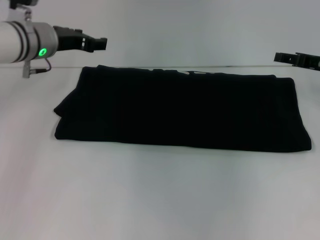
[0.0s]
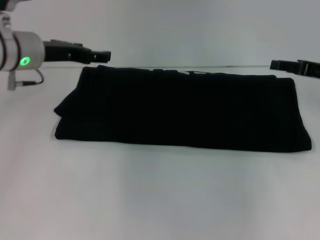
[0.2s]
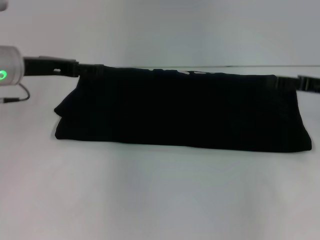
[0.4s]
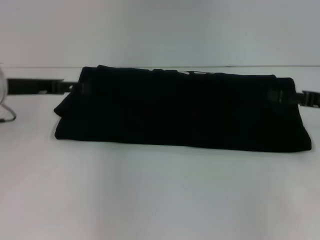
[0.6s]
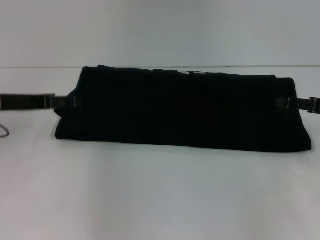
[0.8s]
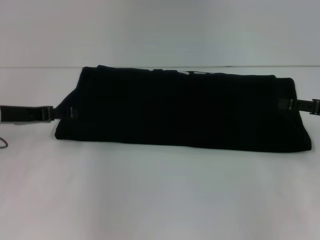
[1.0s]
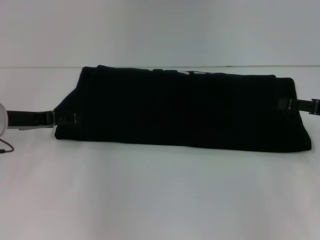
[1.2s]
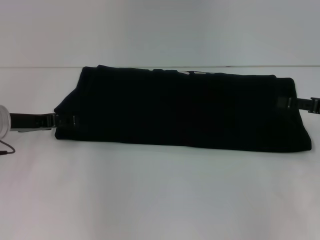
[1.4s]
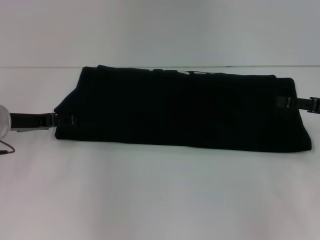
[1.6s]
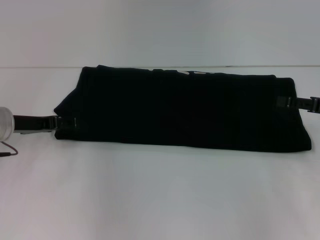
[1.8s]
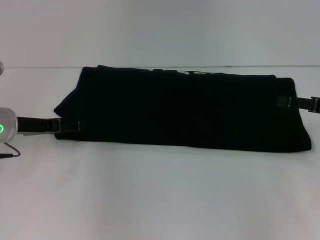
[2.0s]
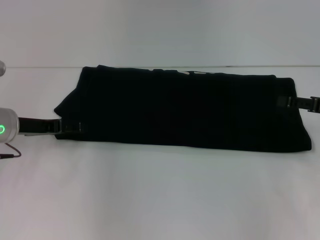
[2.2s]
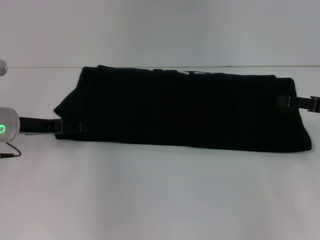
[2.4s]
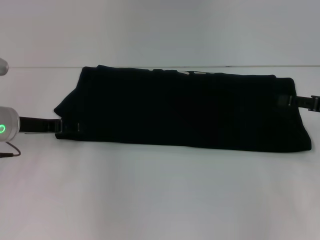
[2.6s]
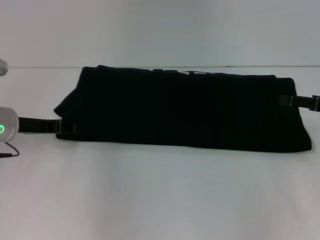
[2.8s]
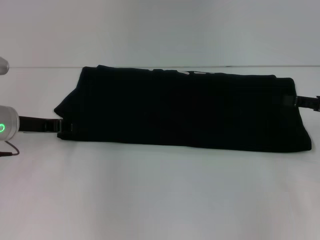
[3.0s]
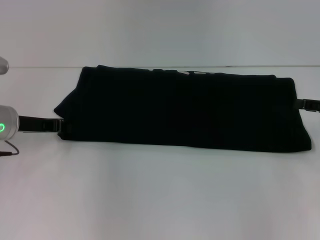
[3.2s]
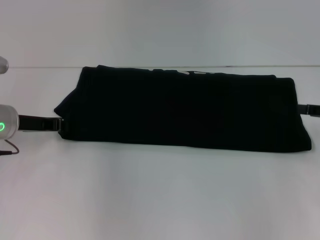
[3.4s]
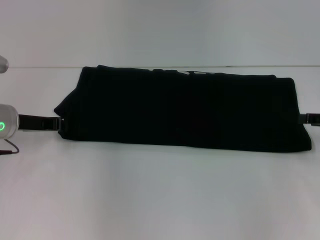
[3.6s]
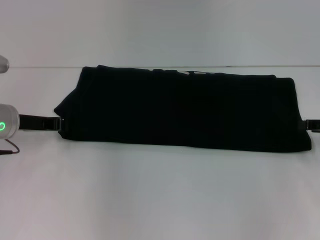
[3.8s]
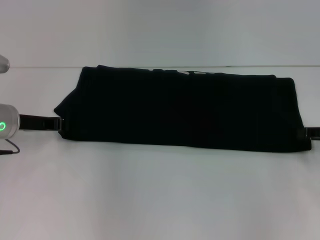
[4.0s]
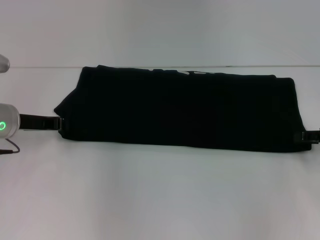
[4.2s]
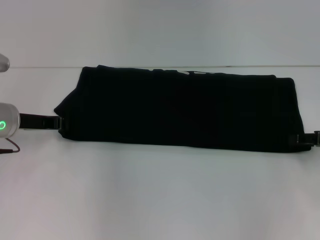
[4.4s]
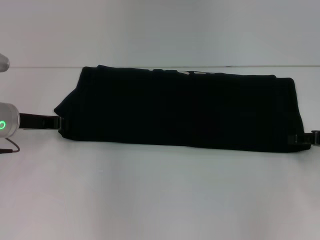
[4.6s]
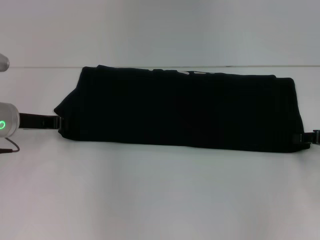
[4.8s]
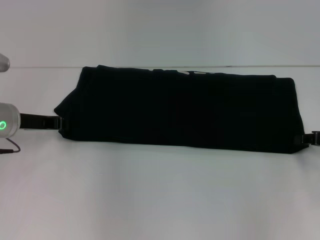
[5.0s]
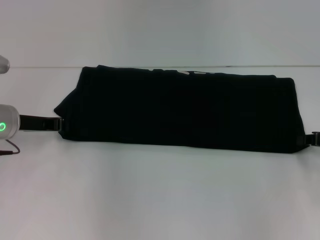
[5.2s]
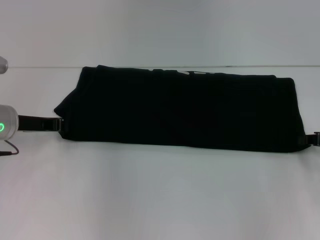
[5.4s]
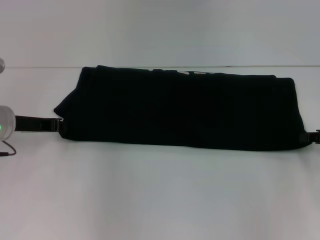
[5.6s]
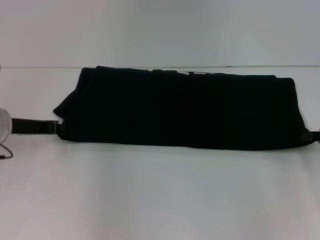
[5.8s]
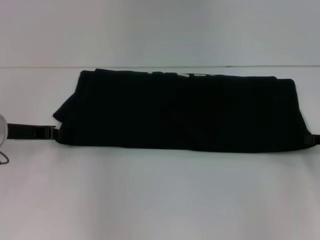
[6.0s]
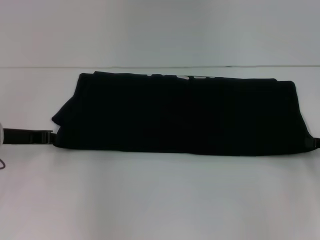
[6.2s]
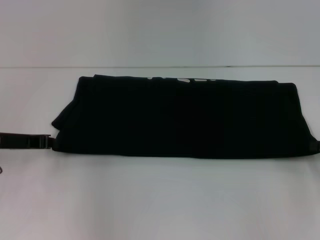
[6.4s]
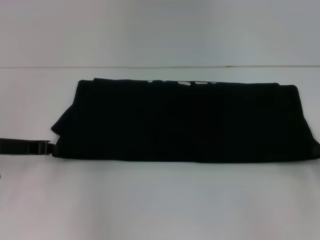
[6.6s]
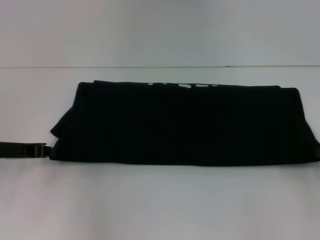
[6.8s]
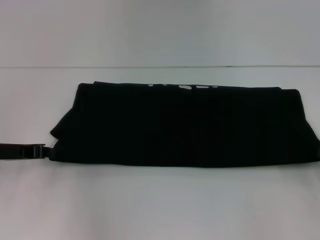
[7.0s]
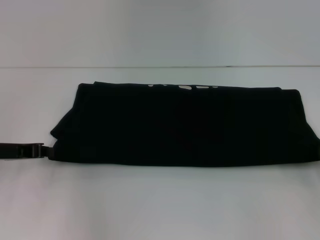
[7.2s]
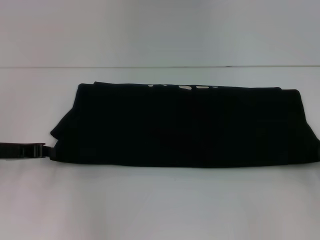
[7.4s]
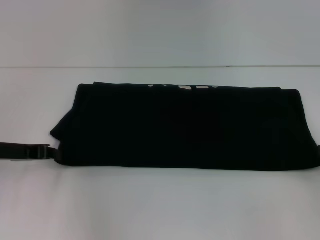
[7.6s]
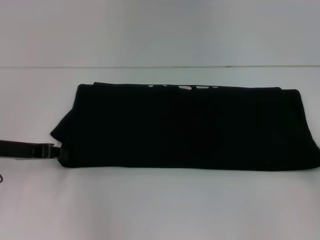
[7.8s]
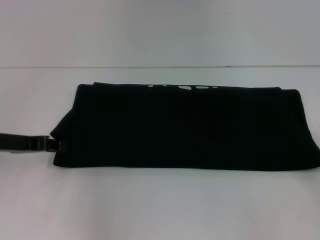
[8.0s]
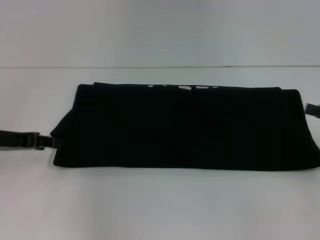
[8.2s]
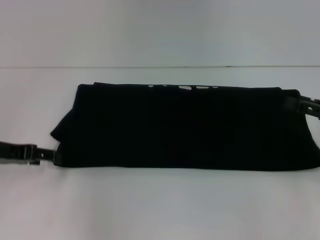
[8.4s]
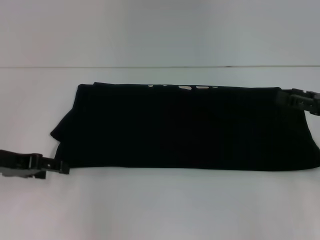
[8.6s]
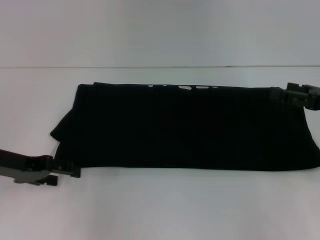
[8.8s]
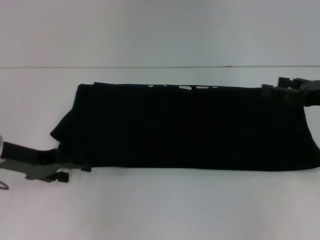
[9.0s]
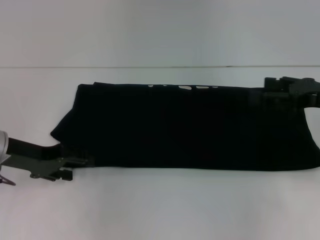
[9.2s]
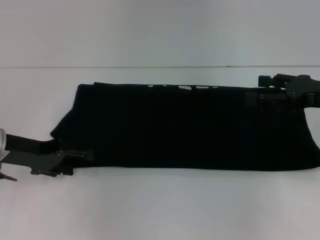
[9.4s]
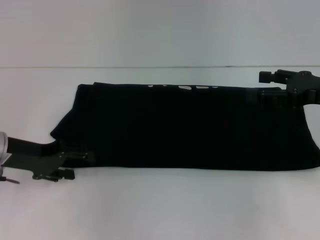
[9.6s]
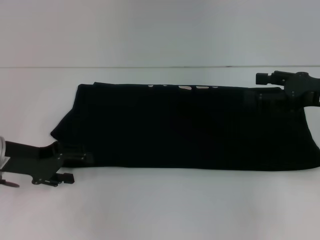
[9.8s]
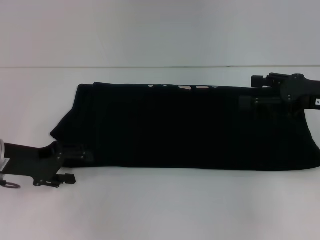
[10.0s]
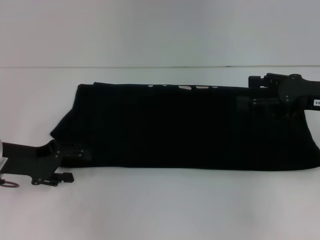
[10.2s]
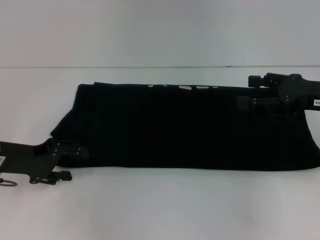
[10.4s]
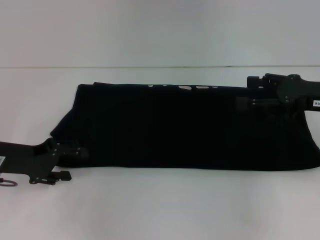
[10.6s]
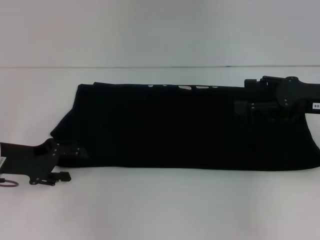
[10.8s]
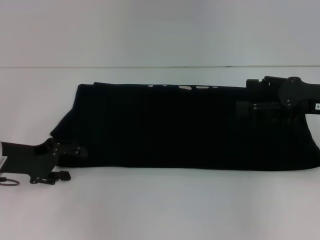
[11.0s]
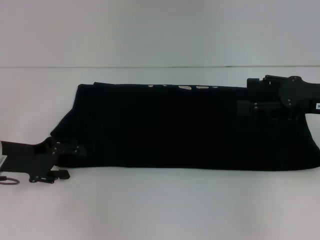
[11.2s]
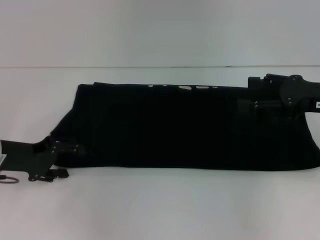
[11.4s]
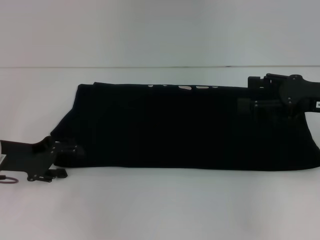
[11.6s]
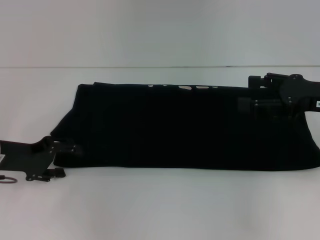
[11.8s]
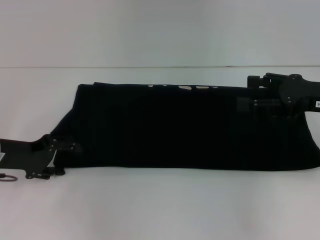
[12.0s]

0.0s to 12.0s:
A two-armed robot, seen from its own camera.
0.0s to 1.6s: The left gripper goes approximately 15 cm backward, to the left and downward, and opens. The right gripper goes about 10 cm backward.
1.6s to 3.0s: The left gripper closes.
3.0s to 4.4s: The left gripper closes.
4.4s to 6.0s: The right gripper closes its fingers.
6.0s to 7.6s: The grippers make only small movements.
7.6s to 9.0s: The right gripper goes about 10 cm to the left, forward and upward, and opens up; the left gripper opens.
10.4s to 12.0s: The grippers make only small movements.

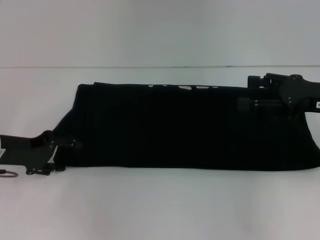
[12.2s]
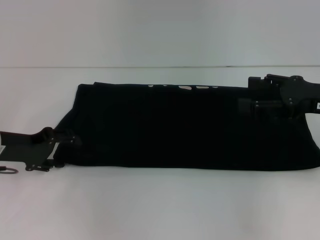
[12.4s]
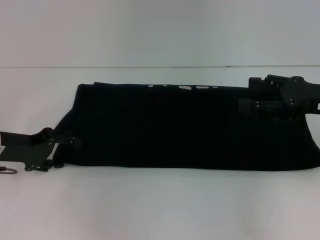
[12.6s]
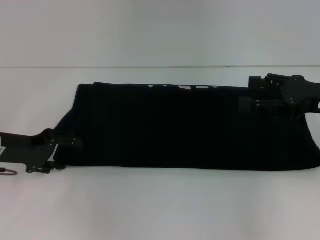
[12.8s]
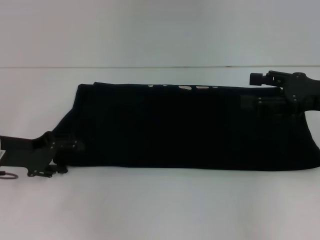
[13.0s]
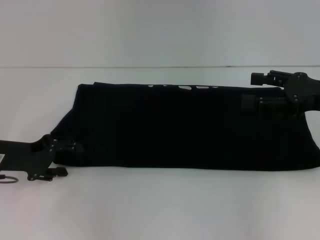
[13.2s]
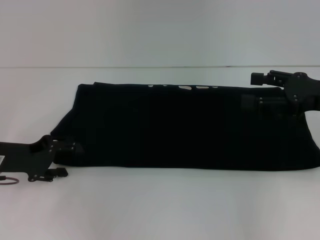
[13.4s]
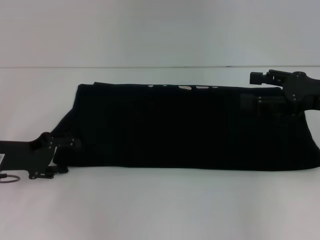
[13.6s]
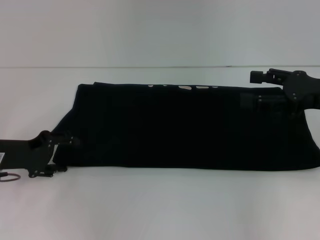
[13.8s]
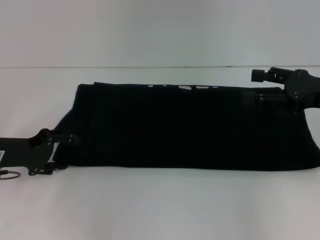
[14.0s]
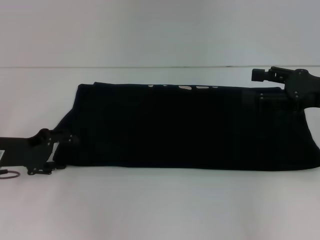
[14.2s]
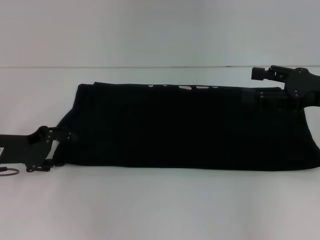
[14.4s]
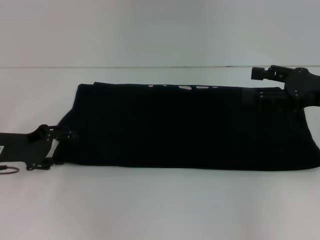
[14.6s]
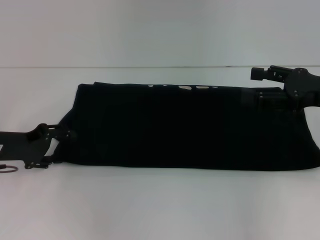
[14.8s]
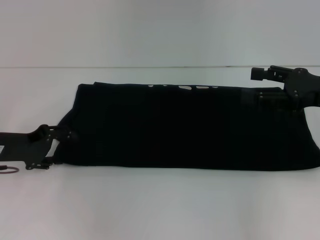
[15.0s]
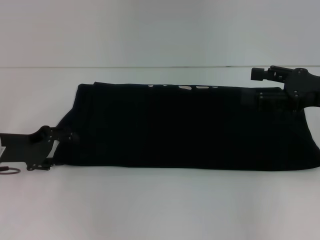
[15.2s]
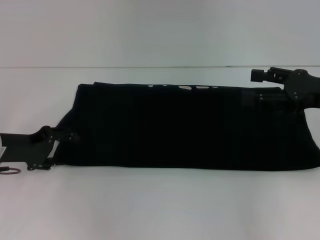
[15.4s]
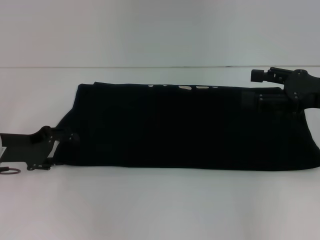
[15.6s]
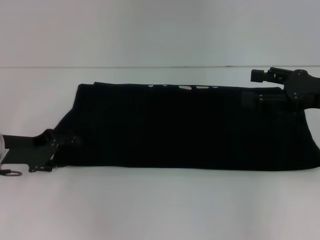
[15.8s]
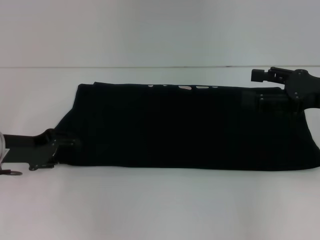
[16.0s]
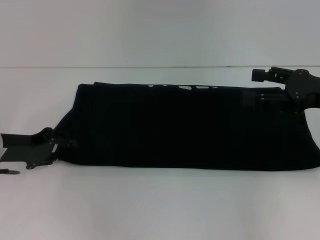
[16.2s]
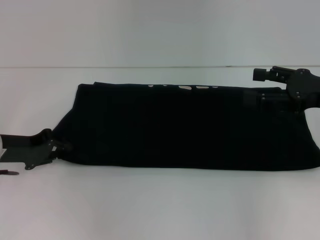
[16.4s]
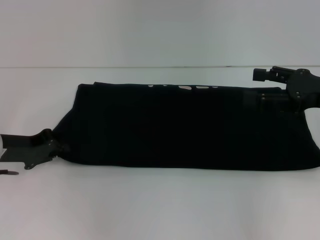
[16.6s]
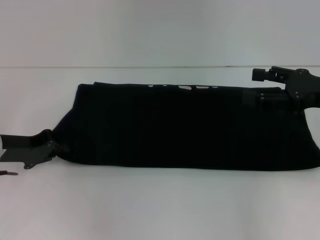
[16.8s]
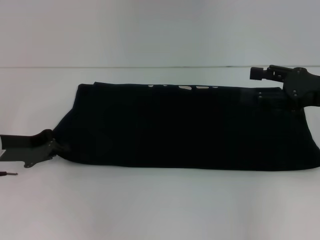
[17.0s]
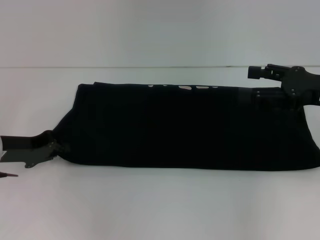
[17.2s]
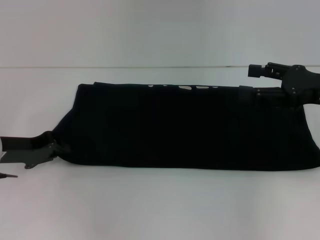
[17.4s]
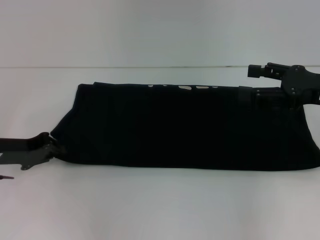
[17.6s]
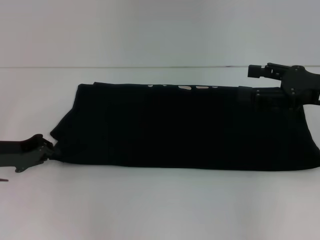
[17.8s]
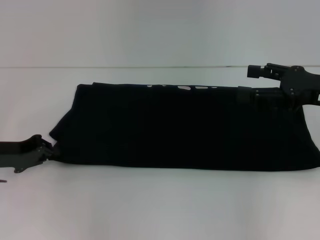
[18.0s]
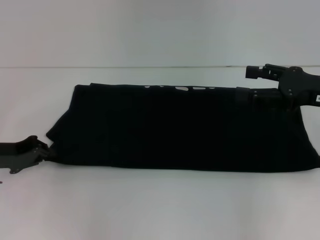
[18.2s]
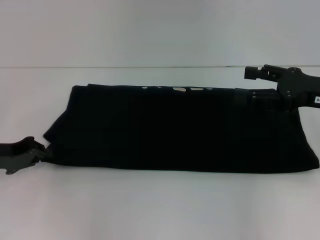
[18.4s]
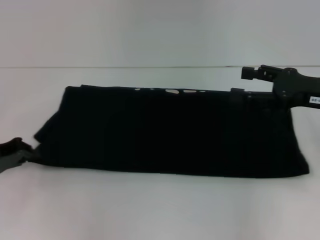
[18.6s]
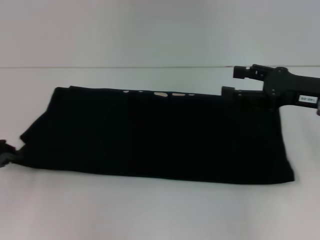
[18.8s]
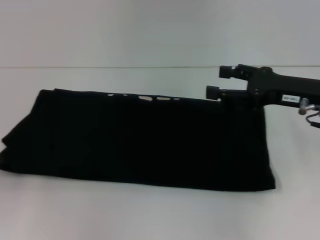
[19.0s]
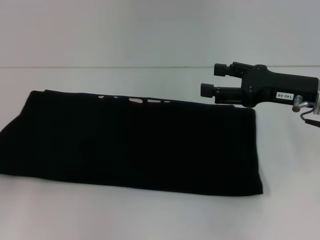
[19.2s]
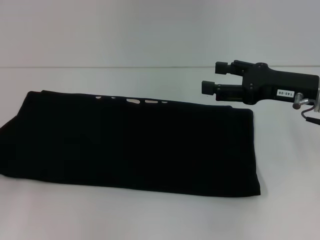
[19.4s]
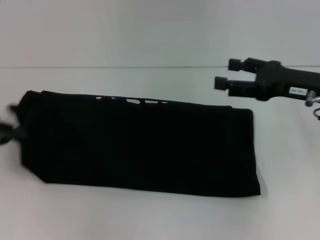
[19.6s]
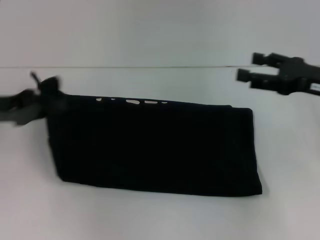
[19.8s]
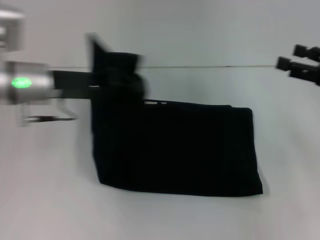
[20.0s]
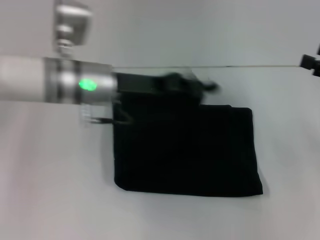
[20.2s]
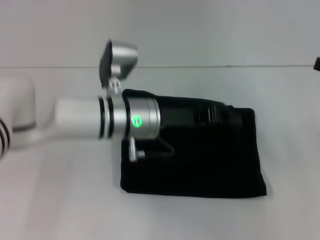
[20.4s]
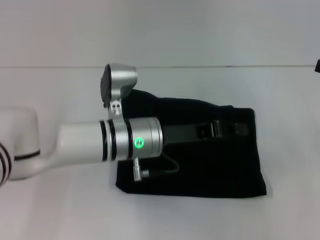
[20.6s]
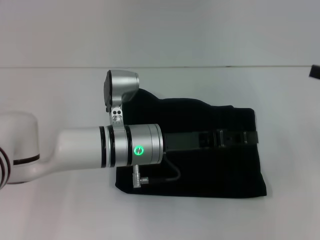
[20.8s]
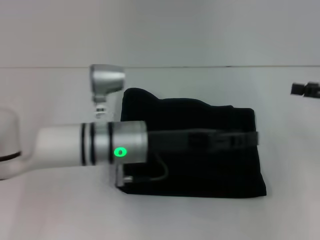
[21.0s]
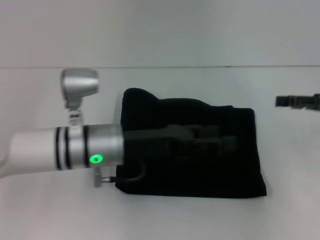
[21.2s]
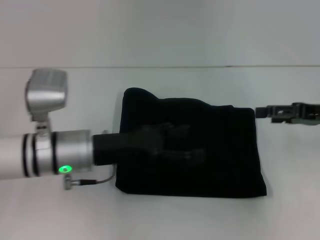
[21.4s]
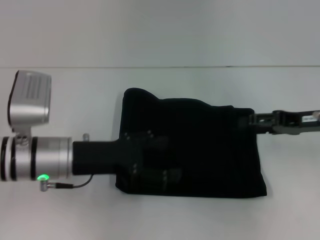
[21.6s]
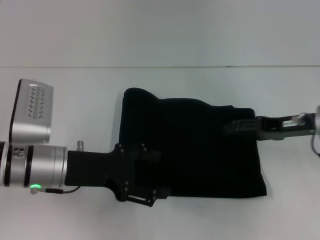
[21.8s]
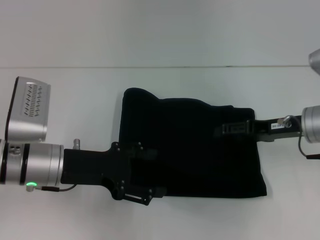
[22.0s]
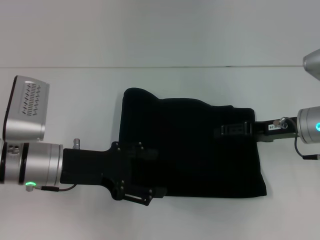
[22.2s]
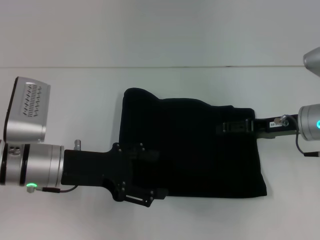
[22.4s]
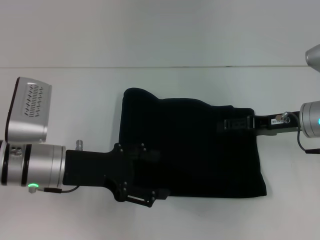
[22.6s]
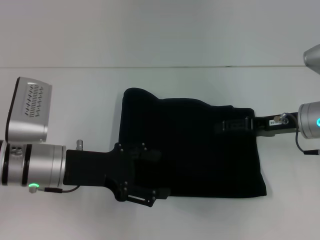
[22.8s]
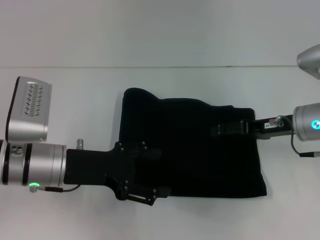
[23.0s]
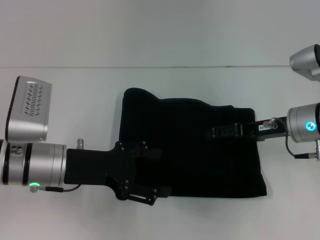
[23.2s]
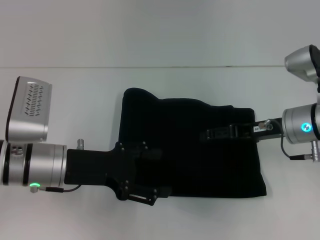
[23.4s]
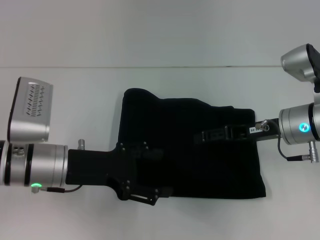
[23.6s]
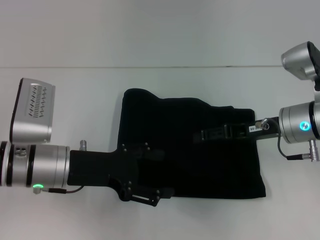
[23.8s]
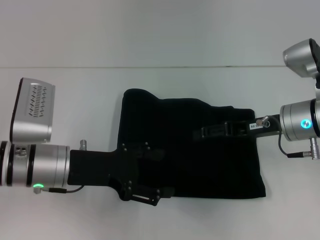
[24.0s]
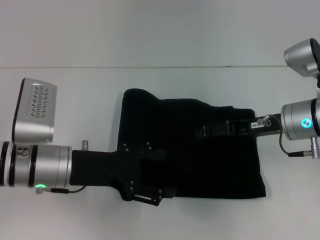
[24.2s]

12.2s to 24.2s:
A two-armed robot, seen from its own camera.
Step, 12.2s to 20.8s: Fold the clothes with your left hand.
12.2s to 13.8s: There are only small adjustments of the grippers.
13.8s to 15.2s: Both grippers stay put.
15.2s to 16.6s: The left gripper closes.
16.6s to 18.2s: The grippers move only a little.
18.2s to 19.8s: The left gripper goes approximately 10 cm upward, and moves roughly 10 cm to the left and comes back.
19.8s to 21.2s: The left gripper heads to the right, covering roughly 20 cm, and opens up. The right gripper travels to the right by about 5 cm.
21.2s to 22.6s: Both grippers travel together to the left, some 10 cm. The left gripper opens its fingers.
22.6s to 24.2s: The grippers make only small movements.
